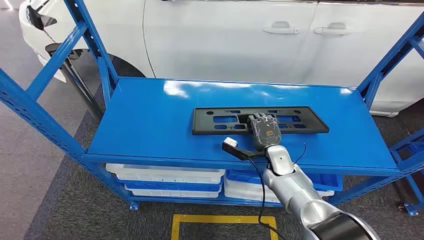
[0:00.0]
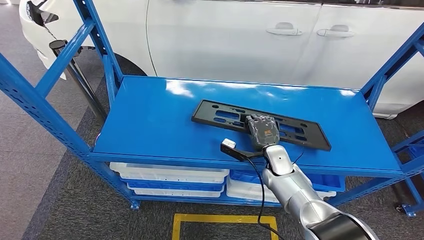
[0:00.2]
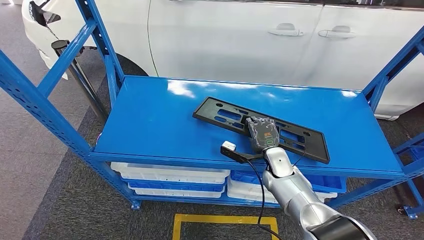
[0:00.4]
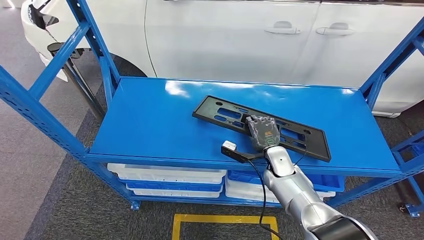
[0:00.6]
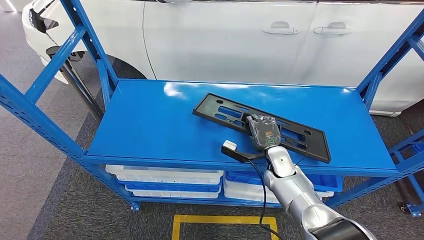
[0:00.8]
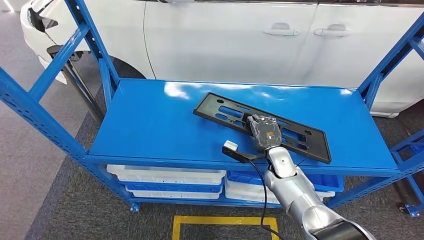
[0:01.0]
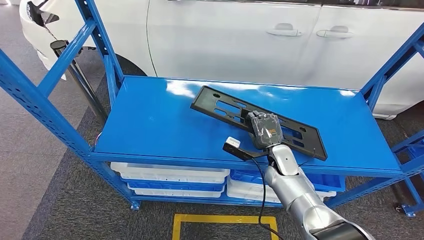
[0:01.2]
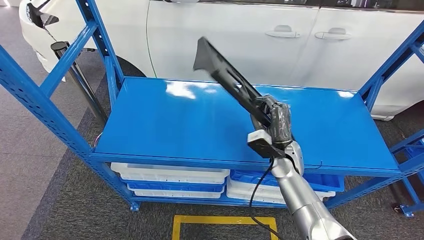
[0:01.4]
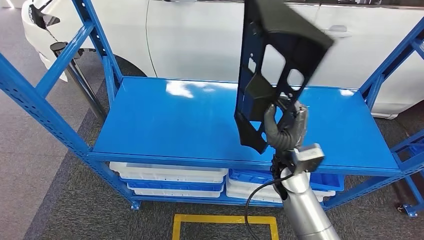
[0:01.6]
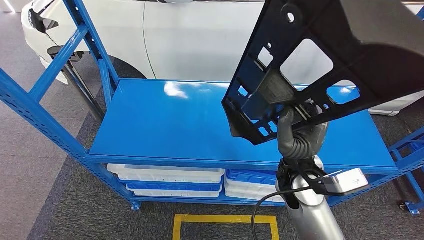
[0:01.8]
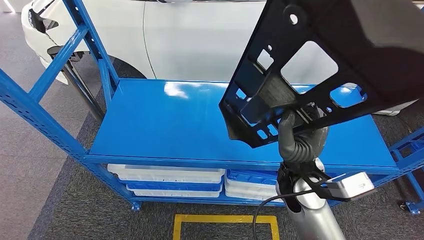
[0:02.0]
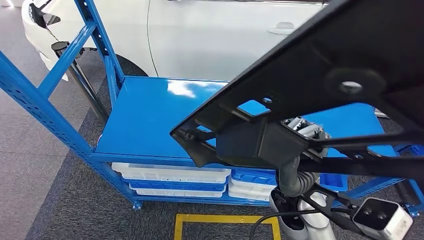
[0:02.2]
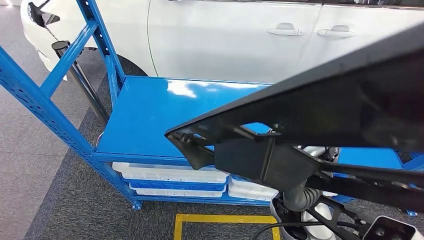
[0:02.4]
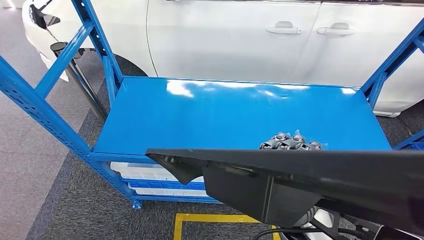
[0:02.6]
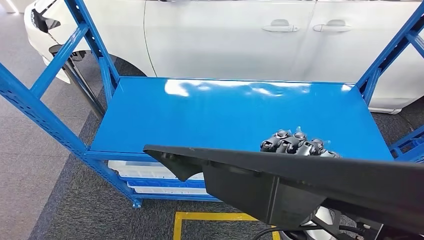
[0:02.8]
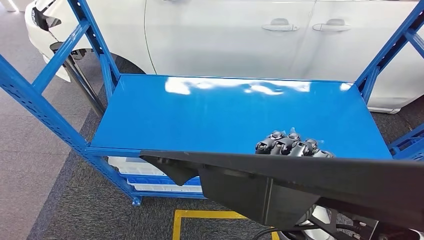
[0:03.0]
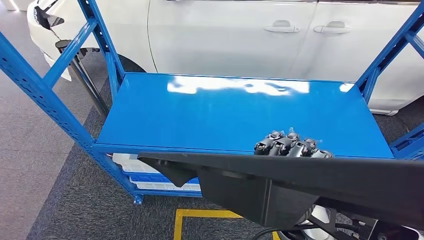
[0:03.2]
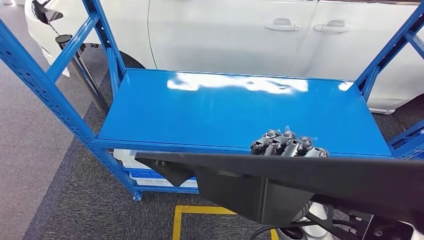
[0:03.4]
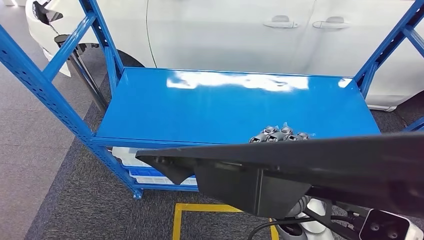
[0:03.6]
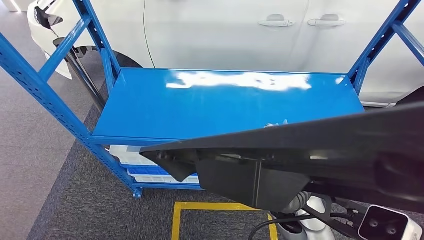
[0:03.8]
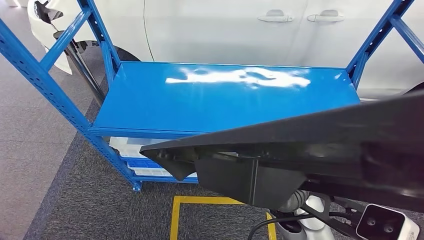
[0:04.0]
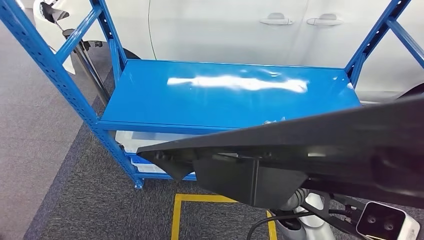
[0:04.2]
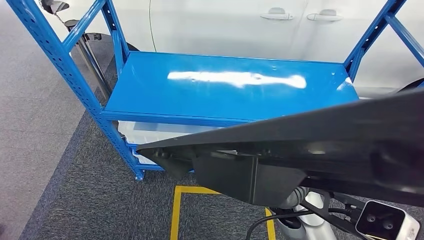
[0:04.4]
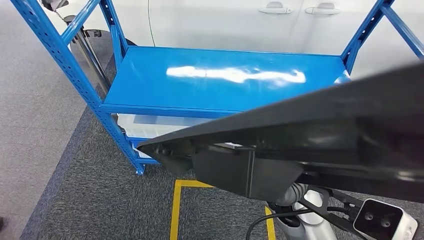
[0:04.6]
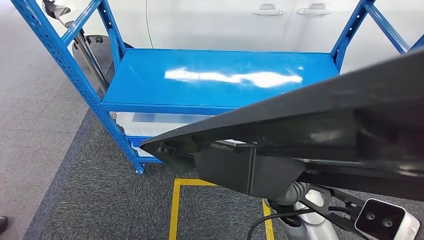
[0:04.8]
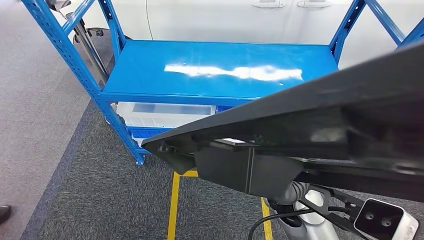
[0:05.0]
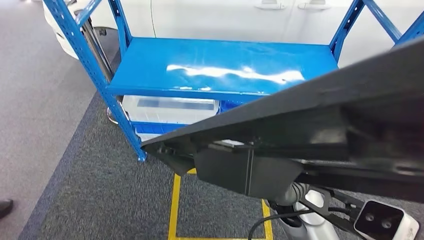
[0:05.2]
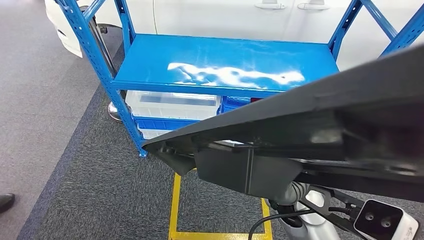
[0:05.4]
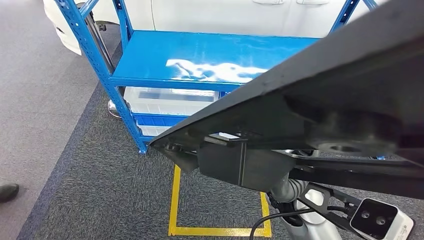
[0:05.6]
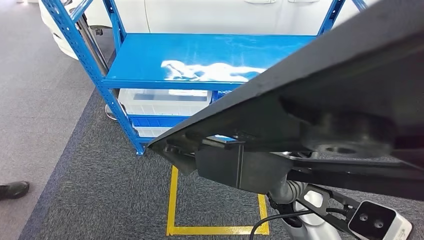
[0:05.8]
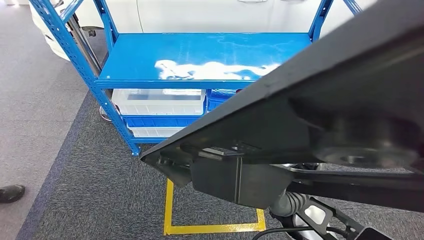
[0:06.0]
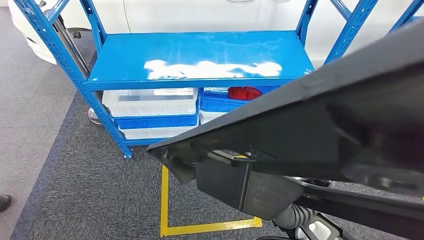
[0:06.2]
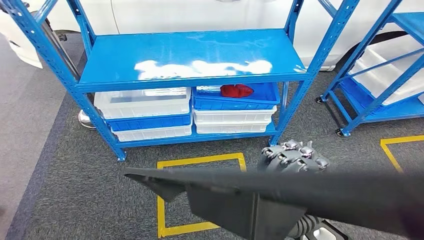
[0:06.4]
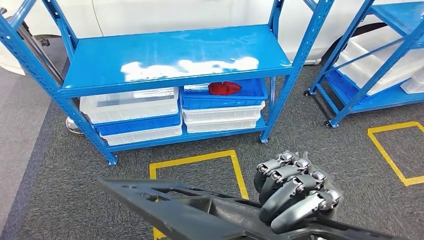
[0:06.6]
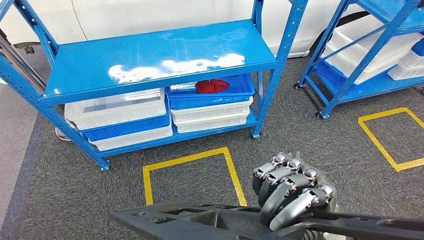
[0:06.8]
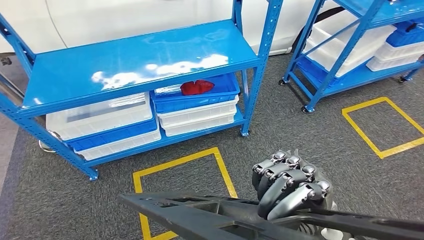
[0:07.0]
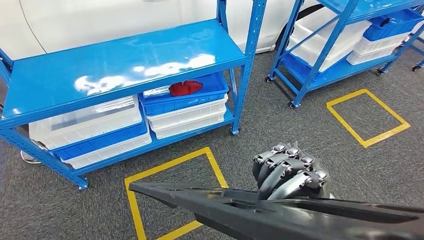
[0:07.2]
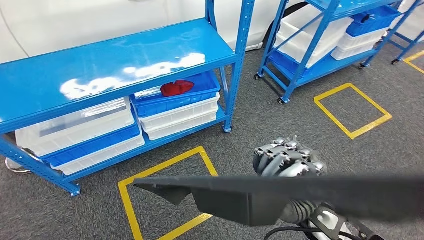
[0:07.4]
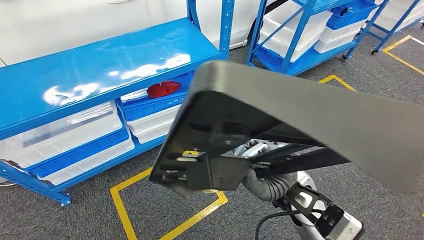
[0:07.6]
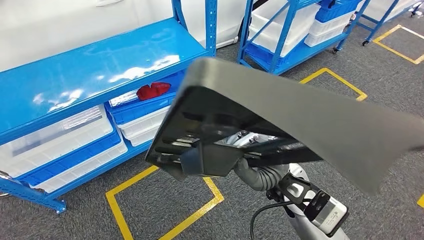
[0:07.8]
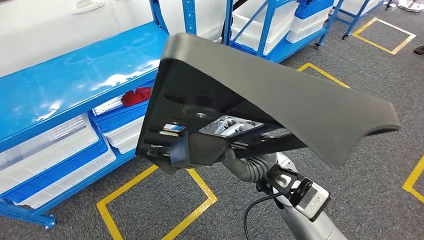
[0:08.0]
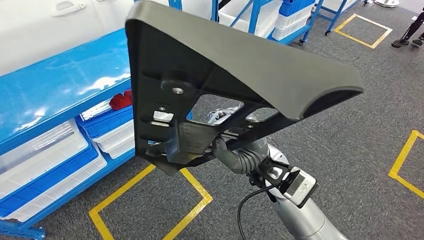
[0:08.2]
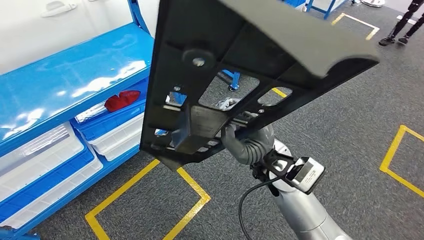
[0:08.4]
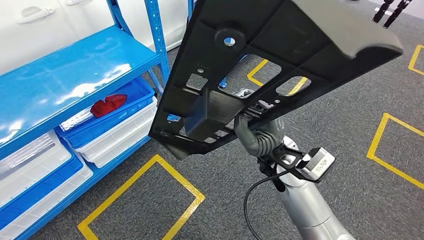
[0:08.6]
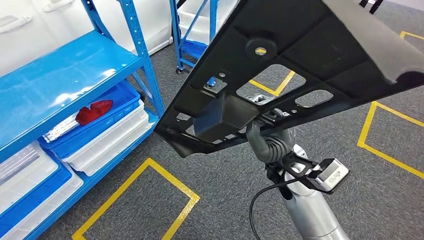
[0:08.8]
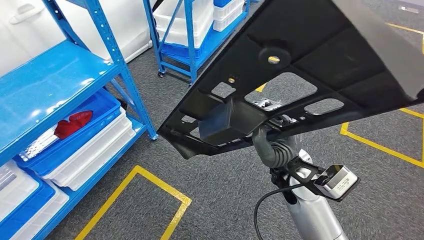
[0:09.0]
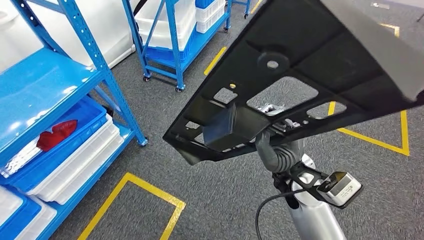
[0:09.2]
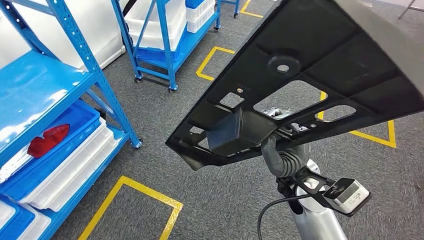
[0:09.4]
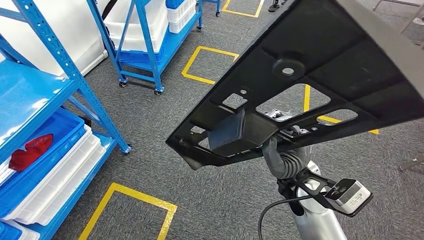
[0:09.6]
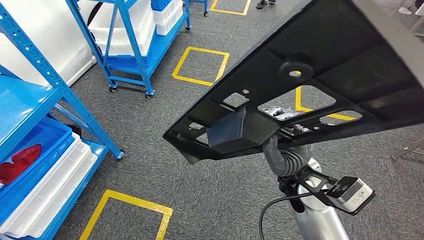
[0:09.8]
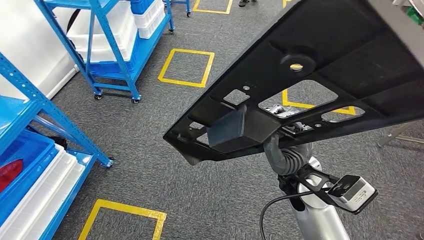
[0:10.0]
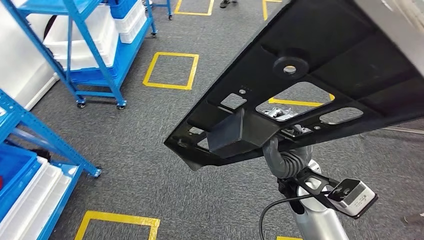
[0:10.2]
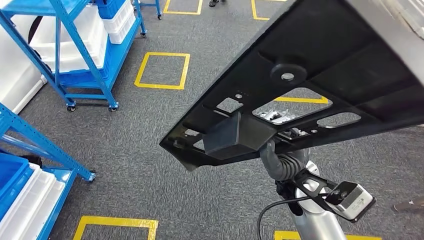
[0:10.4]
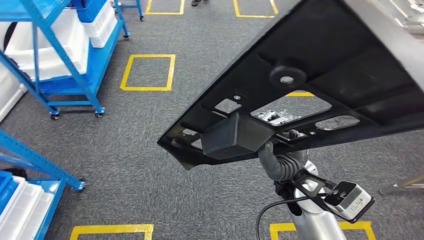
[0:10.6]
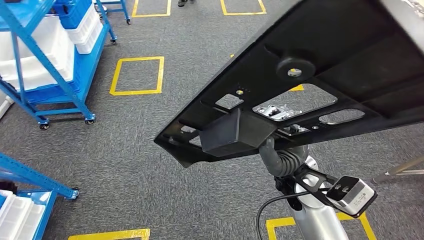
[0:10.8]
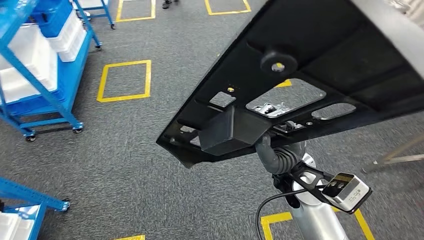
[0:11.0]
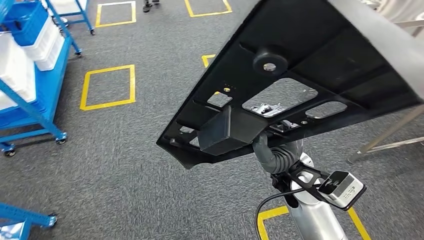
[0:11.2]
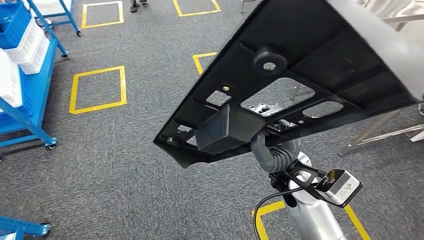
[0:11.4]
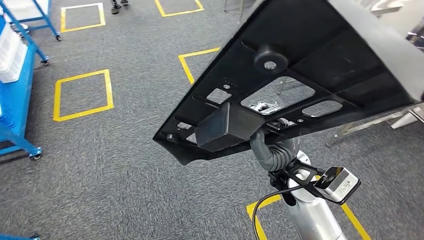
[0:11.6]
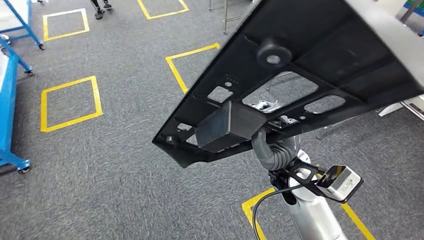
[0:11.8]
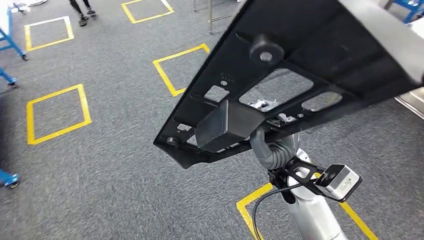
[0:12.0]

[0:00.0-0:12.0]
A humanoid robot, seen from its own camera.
Step, 0:00.0 to 0:03.2: Pick up the large material from the shelf.

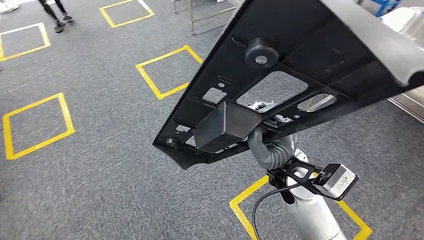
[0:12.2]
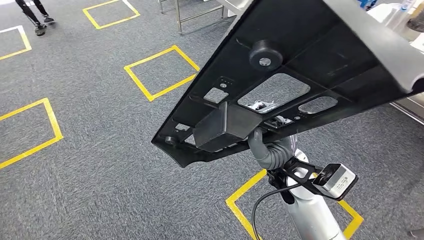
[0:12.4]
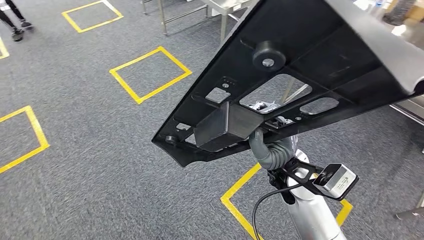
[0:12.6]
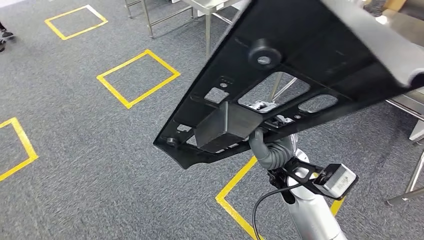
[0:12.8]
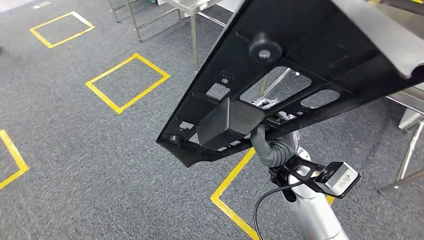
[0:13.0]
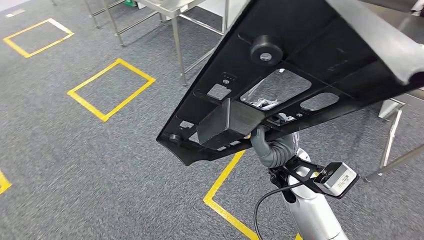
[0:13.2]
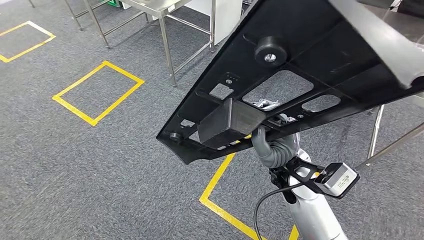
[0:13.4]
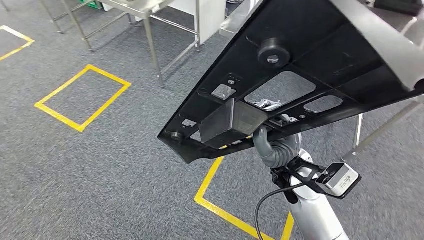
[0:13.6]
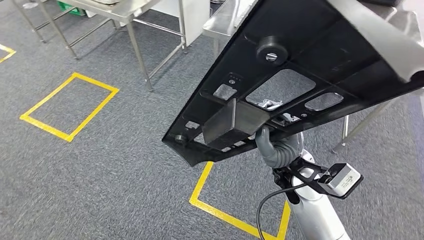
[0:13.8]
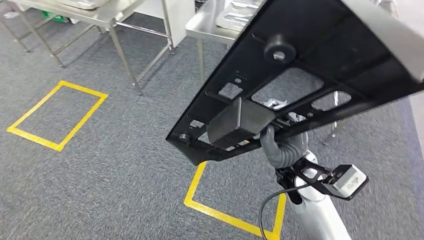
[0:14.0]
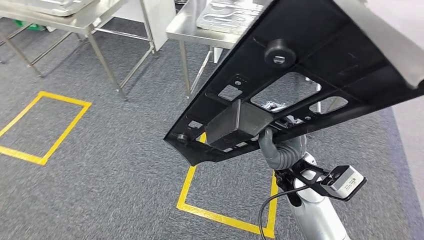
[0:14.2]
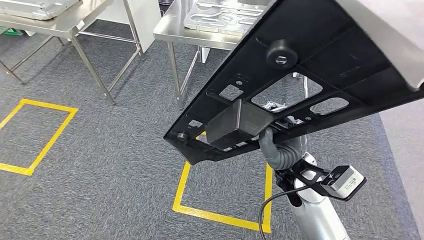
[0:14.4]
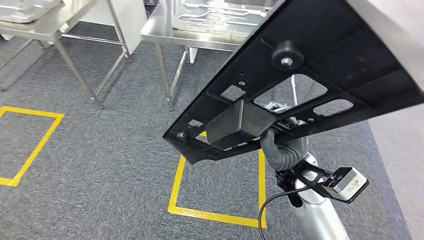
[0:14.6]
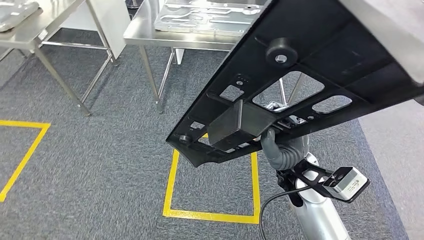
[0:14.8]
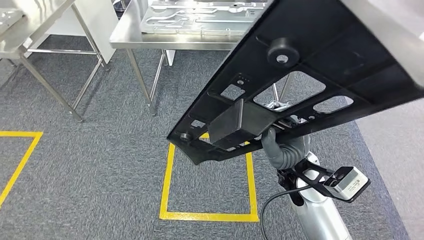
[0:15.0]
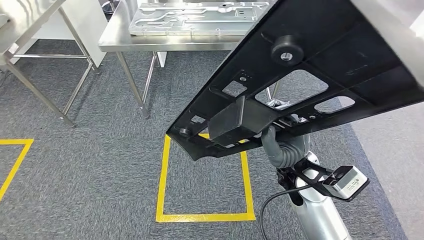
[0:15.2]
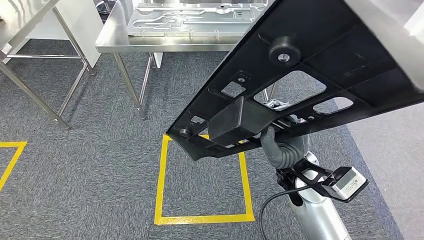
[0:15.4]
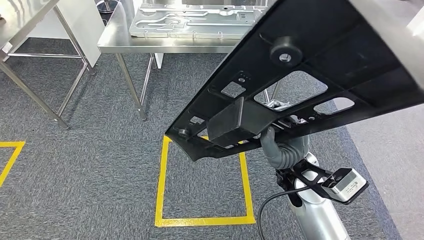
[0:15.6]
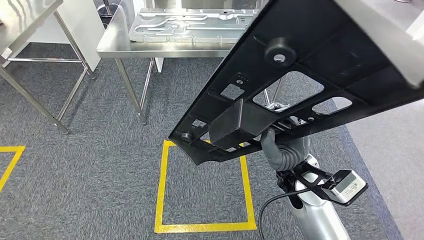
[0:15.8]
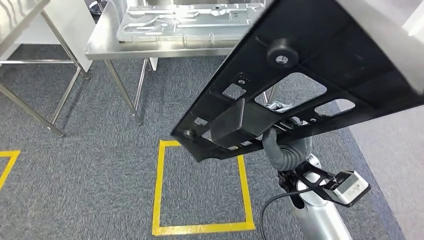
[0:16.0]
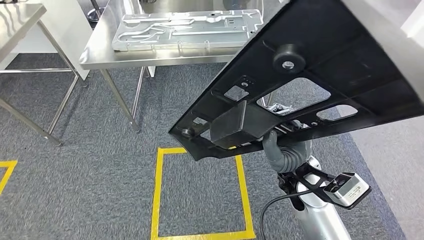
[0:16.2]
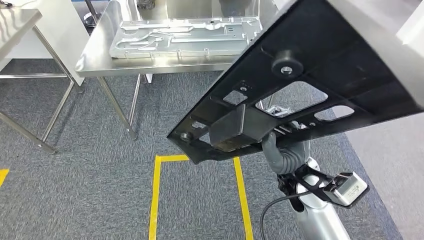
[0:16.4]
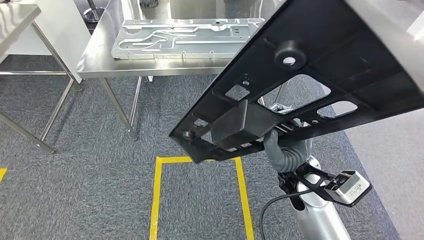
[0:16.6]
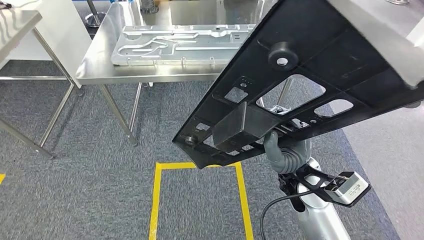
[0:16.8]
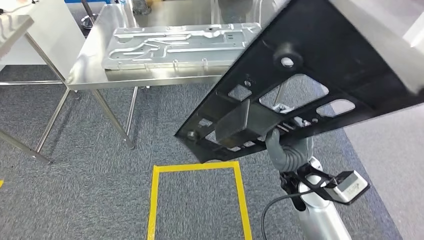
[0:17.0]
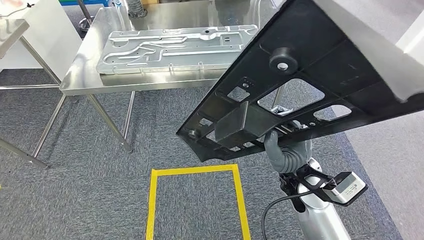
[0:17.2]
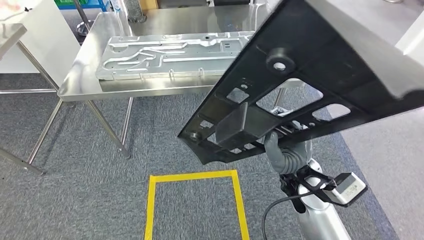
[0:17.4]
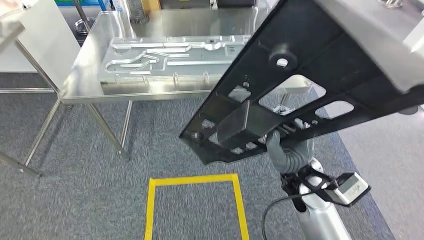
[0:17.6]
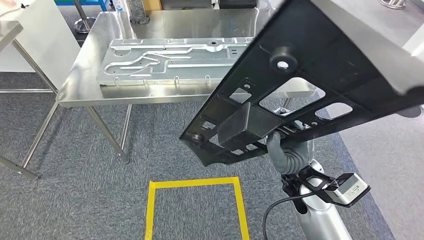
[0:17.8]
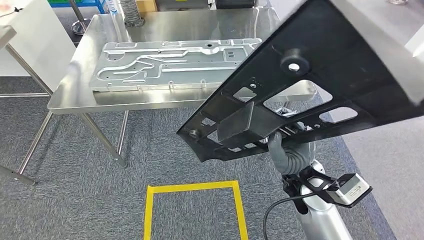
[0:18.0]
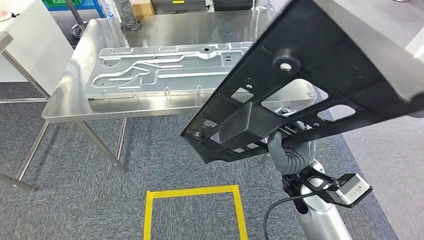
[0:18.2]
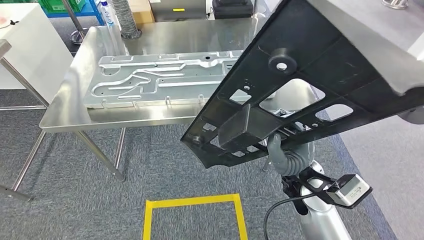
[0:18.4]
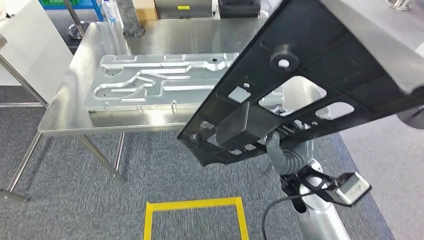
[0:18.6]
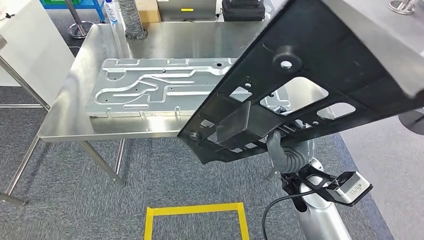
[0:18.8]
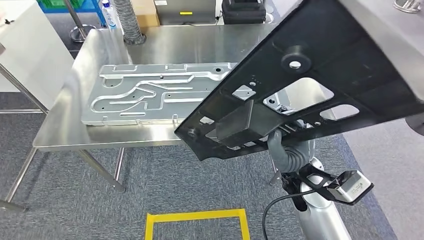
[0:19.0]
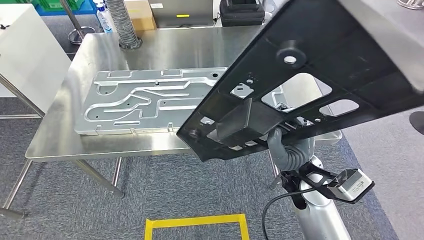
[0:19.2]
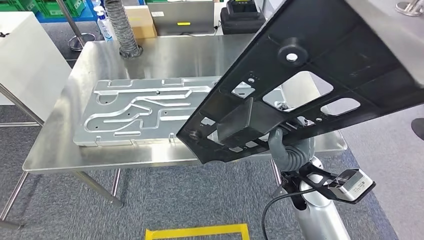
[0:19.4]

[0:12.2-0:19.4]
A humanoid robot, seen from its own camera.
Step, 0:12.2 to 0:18.0: Move the large material to the front of the workbench.
